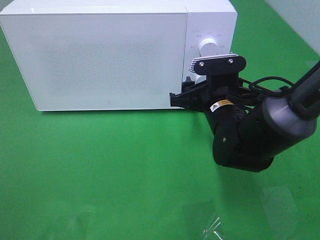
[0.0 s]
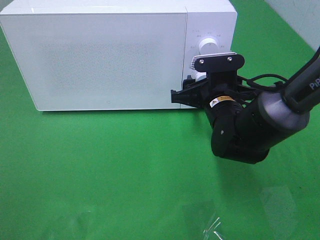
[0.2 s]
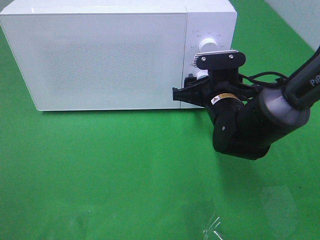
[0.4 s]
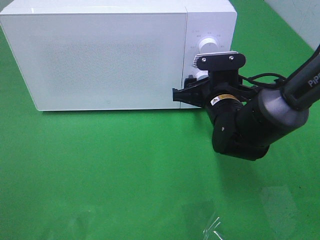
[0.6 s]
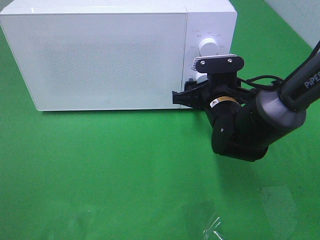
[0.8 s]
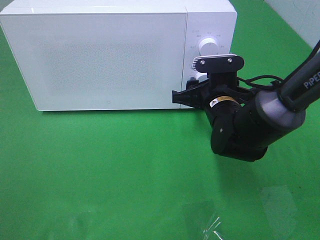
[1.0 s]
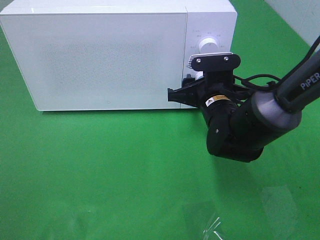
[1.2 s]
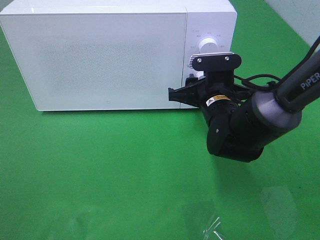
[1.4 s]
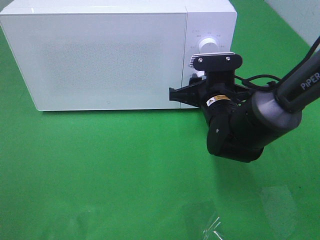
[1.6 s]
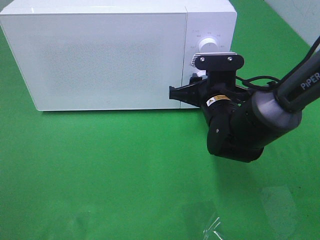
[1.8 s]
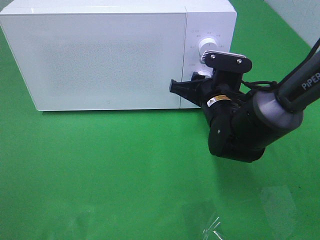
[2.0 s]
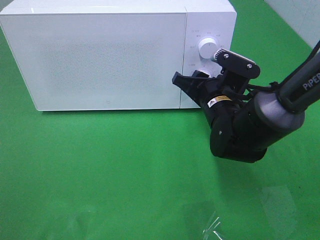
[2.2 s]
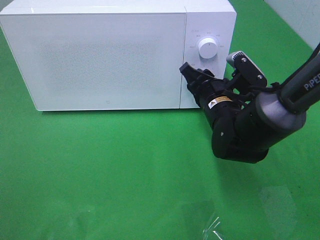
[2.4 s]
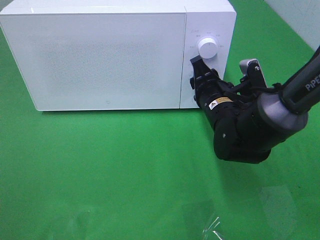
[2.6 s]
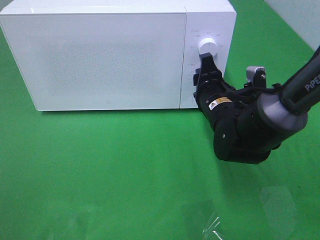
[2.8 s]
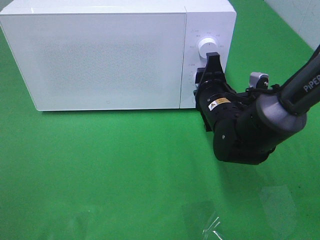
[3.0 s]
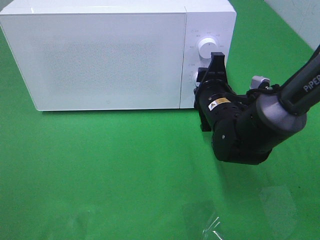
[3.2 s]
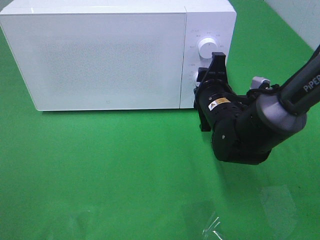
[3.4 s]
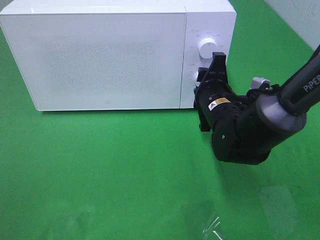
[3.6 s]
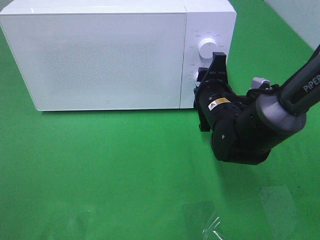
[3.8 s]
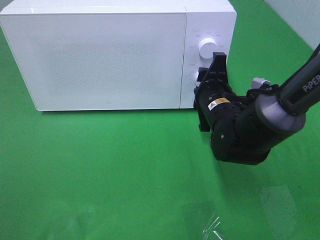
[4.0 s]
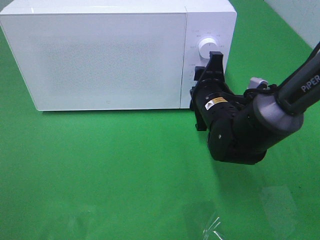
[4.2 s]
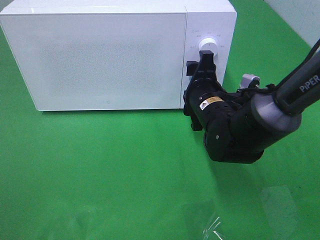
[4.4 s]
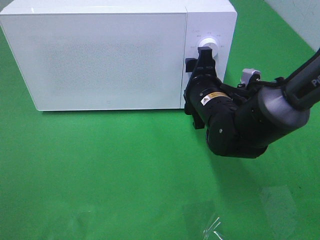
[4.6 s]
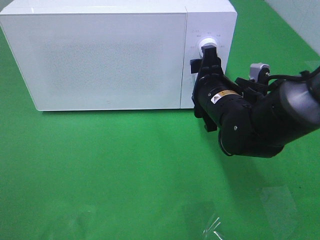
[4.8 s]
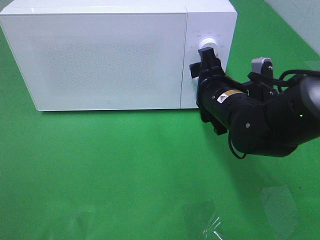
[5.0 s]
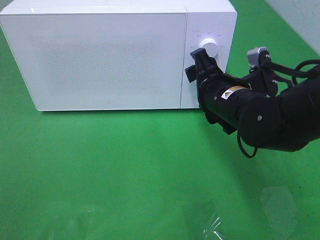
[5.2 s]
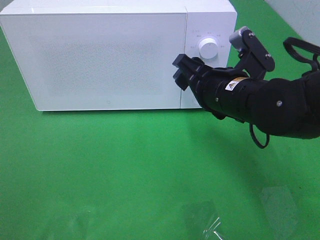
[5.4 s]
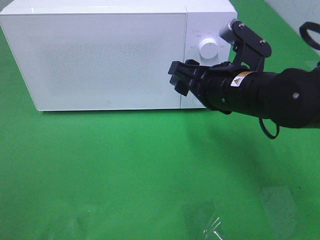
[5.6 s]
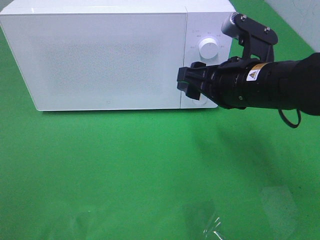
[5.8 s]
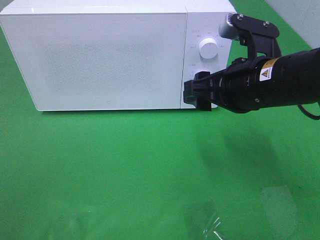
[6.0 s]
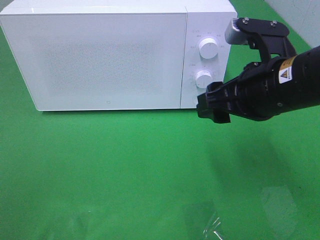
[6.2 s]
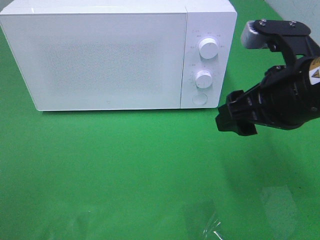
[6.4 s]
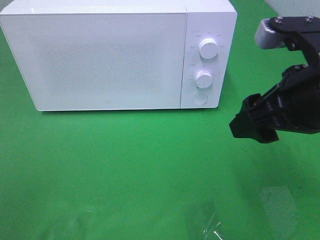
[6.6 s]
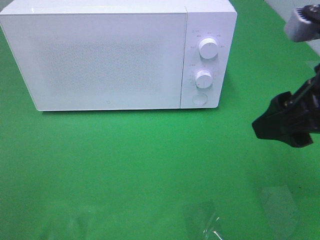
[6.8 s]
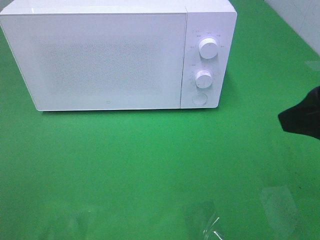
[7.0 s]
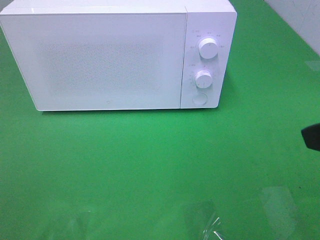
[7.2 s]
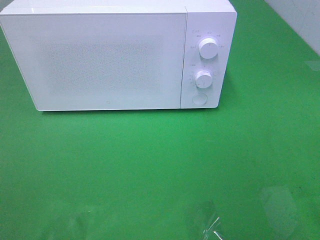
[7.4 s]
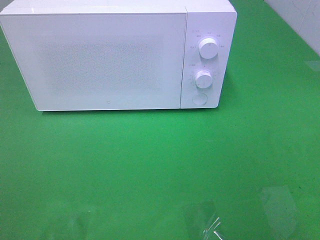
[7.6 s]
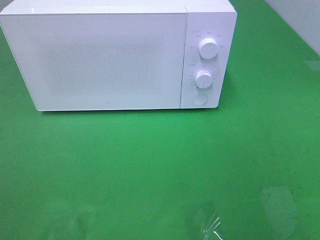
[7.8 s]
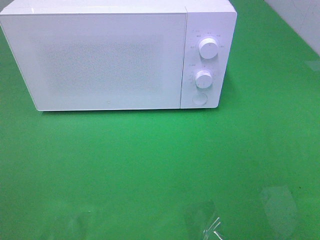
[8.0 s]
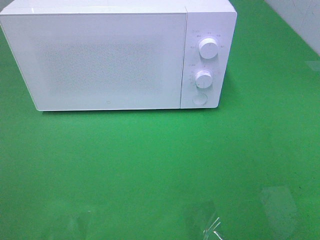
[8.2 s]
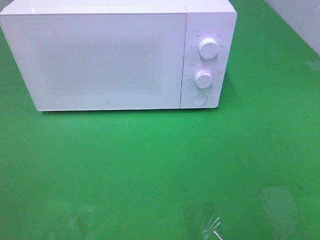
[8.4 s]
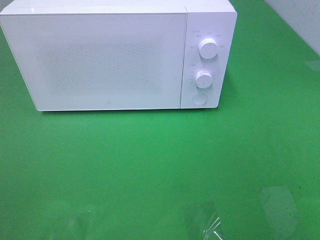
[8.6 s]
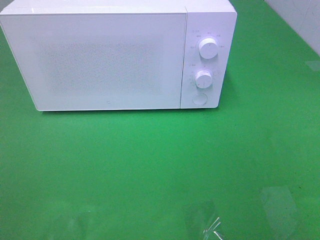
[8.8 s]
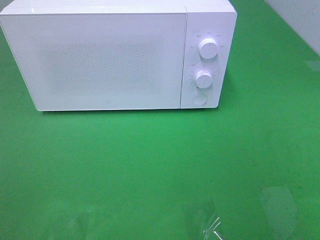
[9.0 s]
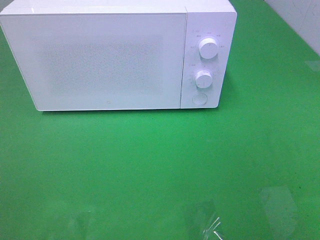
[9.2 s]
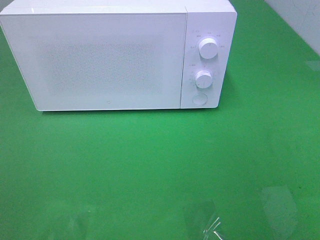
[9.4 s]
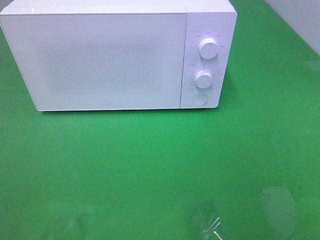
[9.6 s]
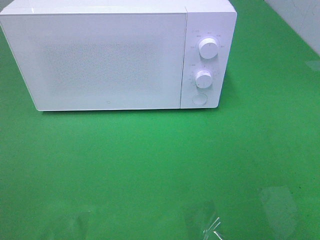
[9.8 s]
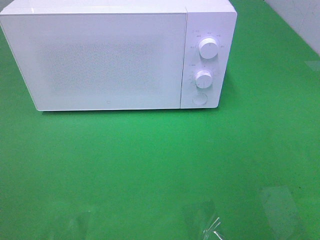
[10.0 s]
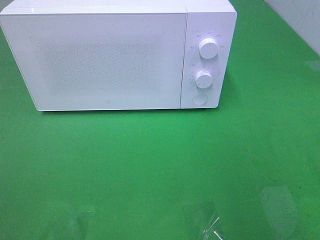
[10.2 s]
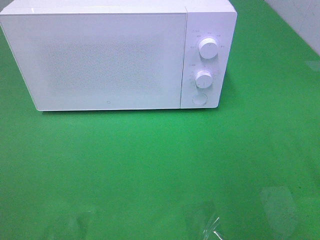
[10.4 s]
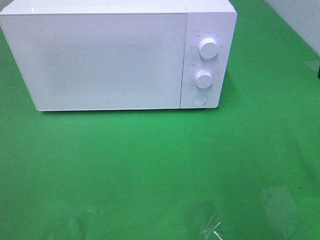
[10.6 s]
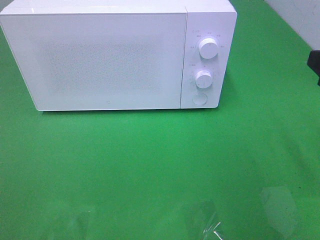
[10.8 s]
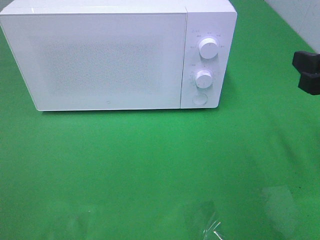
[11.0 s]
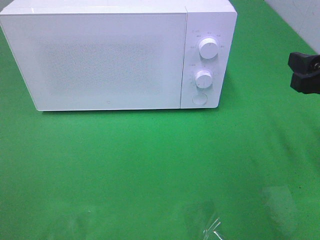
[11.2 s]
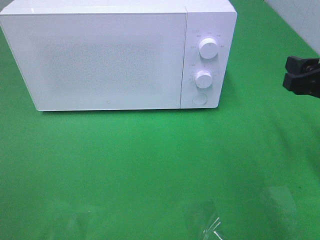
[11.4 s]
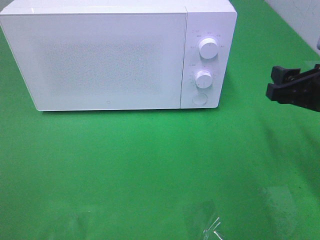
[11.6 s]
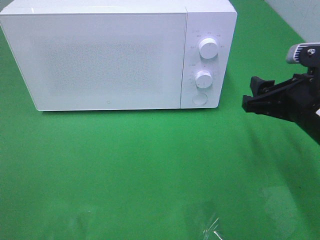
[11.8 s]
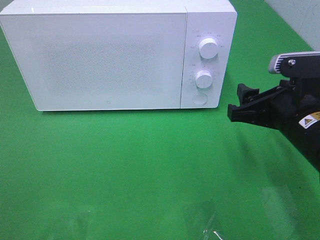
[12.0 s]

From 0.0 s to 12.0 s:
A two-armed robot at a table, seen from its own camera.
Task of the whole recording: Heat the burger.
Step, from 0.0 s to 5.4 s: Right hand: twist timer button.
From 0.0 s to 1.6 s: The right gripper closes.
From 3.0 s to 4.4 s: The grippers make only small movements.
From 4.4 s to 6.0 s: The right gripper goes some 15 cm upward and backward.
From 6.0 s to 7.6 s: The right gripper shifts some 25 cm backward, to the right and upward.
From 10.4 s to 12.0 s: The right gripper heads downward, to the left and forward, covering approximately 15 cm.

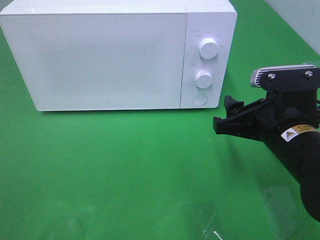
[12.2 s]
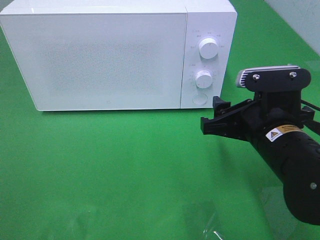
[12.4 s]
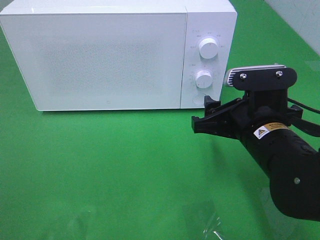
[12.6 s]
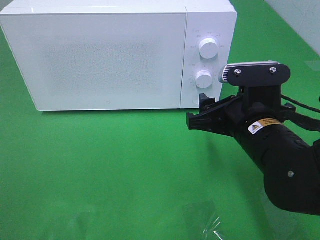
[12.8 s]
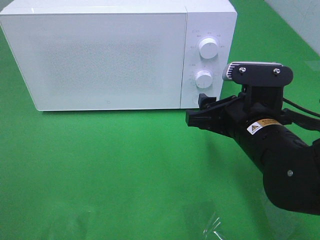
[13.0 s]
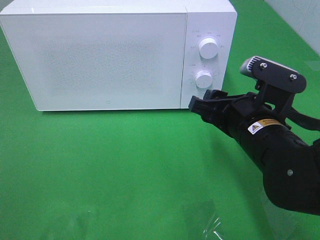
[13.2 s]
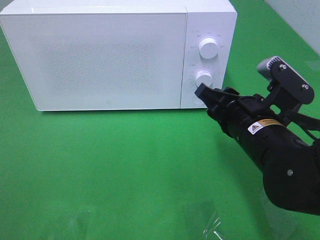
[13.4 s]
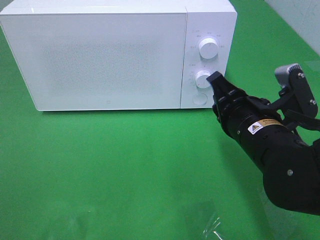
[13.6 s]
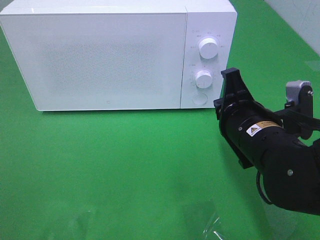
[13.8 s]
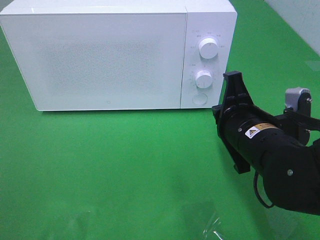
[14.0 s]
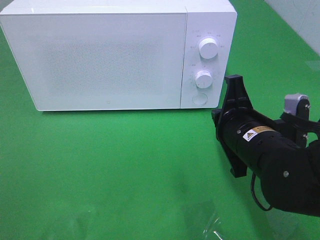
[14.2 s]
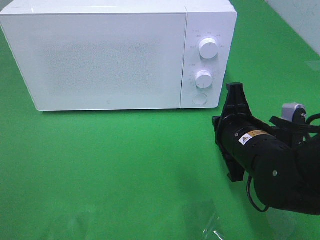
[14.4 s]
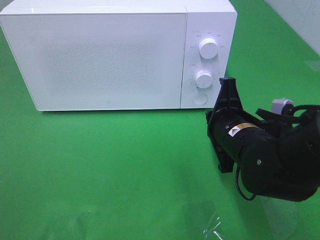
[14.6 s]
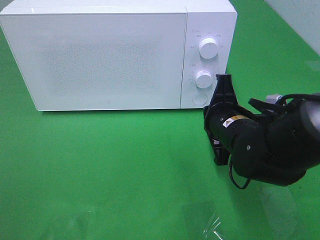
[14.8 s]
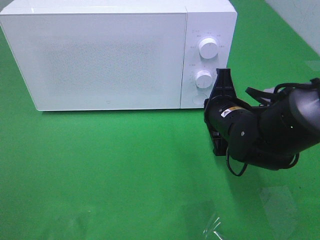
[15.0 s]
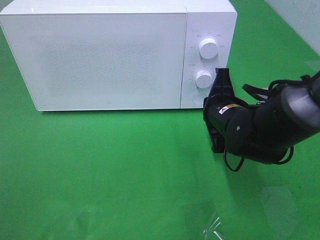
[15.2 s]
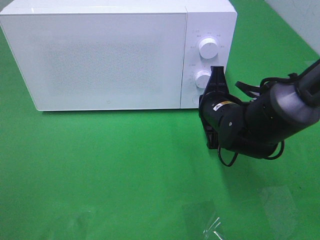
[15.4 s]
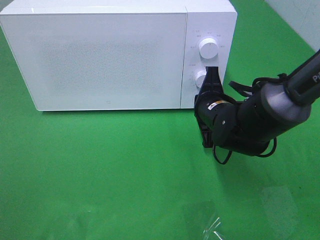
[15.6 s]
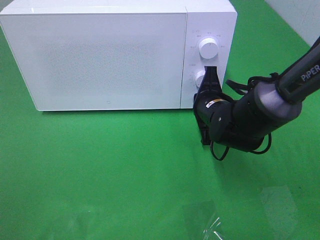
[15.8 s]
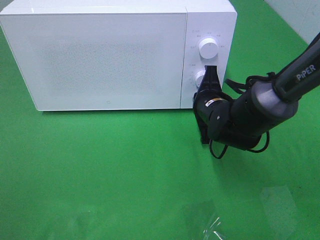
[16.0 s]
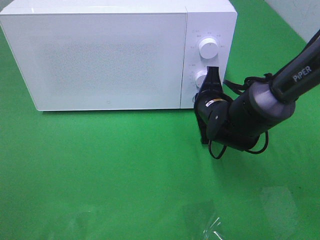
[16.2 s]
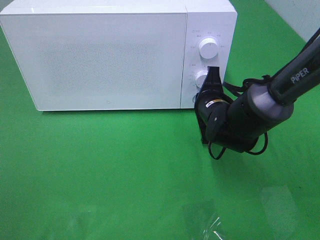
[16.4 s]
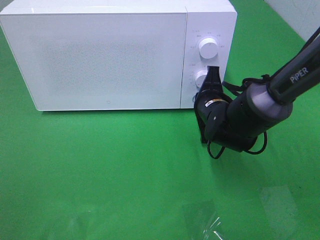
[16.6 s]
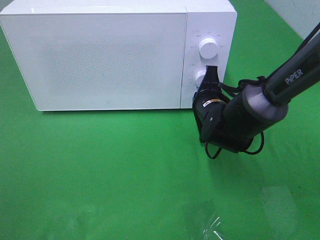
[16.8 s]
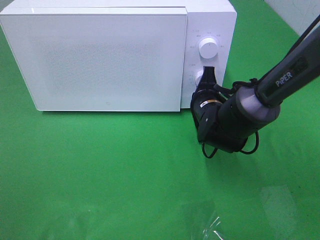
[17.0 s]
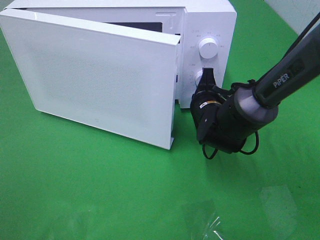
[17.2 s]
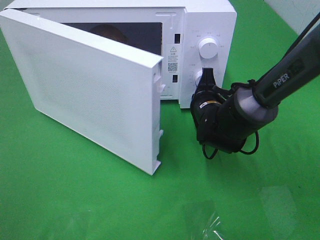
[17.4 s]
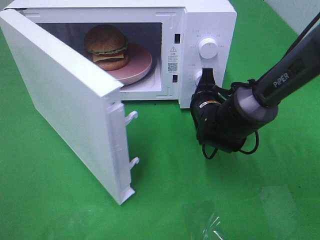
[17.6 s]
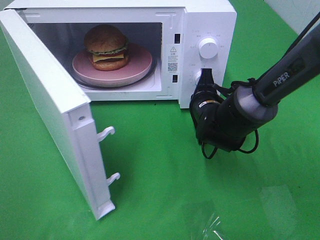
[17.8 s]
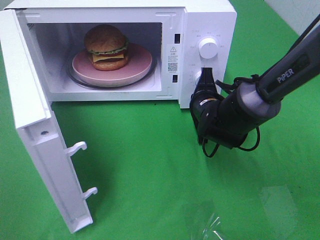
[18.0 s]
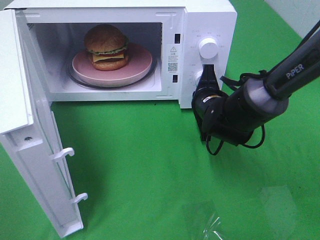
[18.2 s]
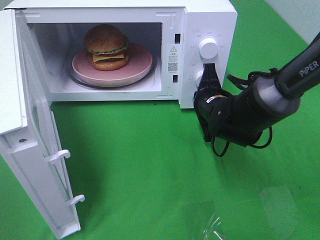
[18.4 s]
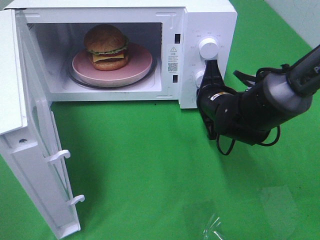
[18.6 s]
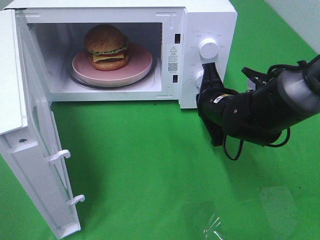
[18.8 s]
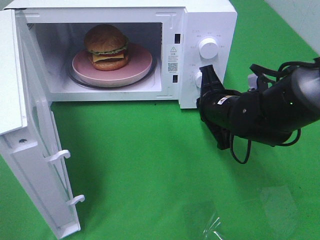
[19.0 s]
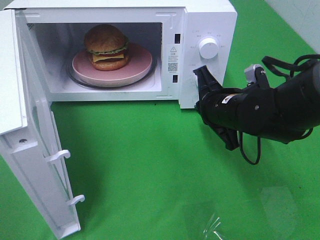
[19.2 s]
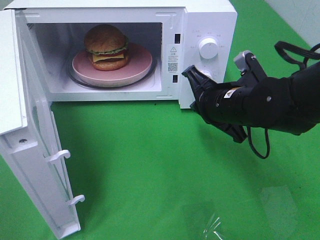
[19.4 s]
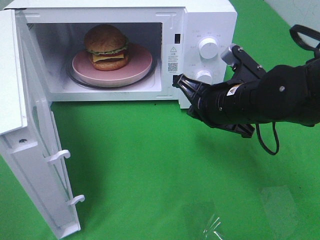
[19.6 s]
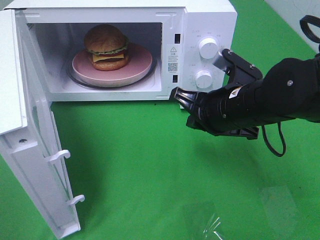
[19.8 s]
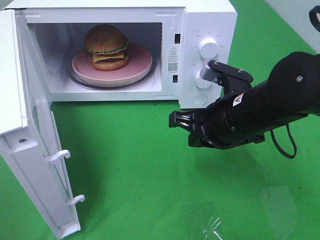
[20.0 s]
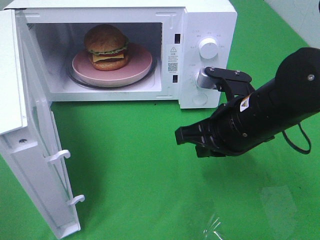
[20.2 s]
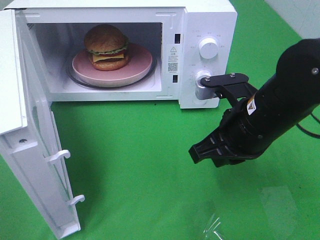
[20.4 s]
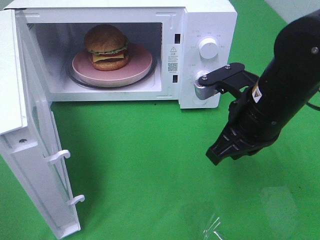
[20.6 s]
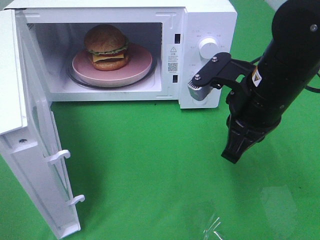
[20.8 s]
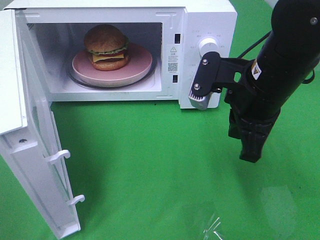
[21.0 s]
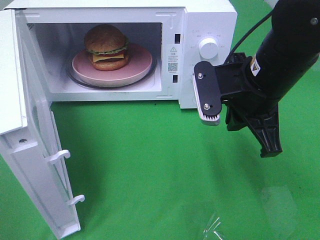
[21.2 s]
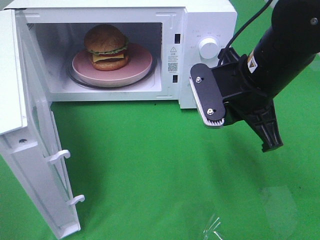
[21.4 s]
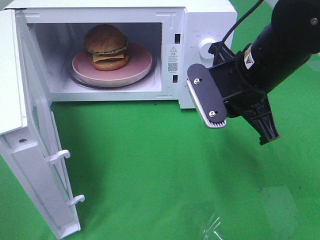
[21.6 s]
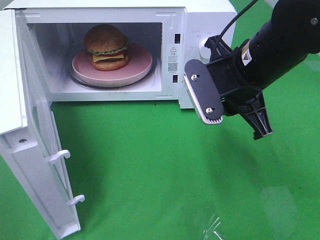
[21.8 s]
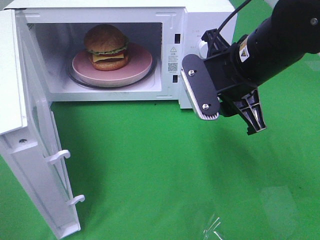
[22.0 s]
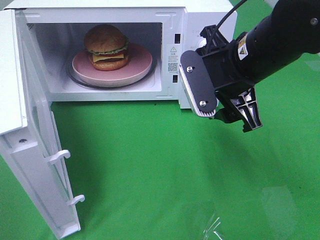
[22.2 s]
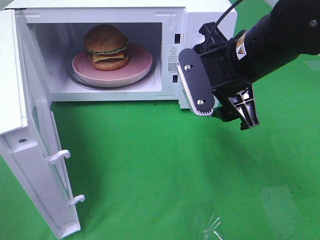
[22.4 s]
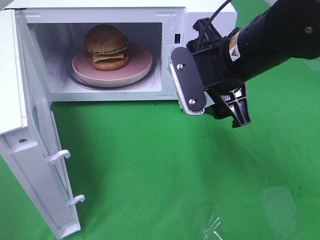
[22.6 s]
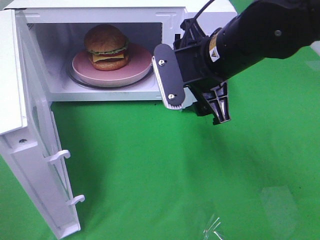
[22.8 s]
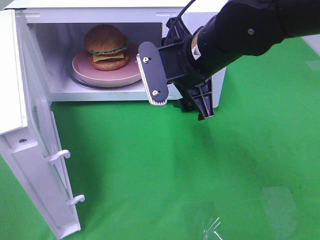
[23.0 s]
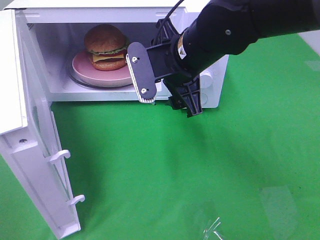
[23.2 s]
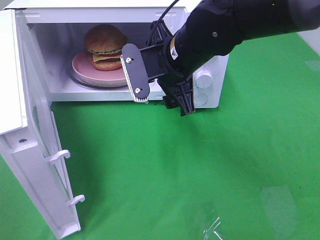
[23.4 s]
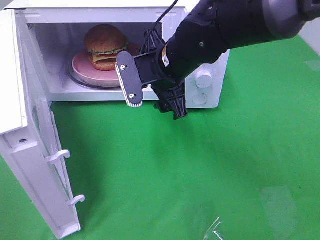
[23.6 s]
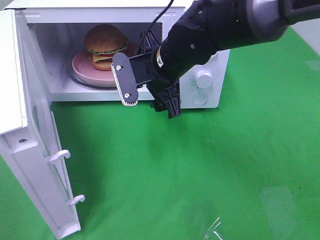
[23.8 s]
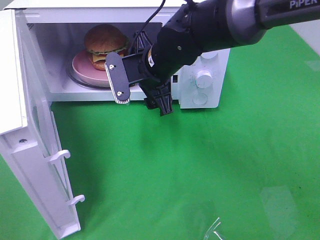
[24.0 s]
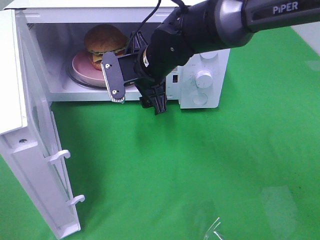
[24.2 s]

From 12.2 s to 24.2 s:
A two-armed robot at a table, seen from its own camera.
Task of the whole recording: Heat the burger.
Step, from 12.2 s to 19.0 s: Right hand: press the switch.
From 12.2 s to 13.8 s: The right gripper closes its fingers.
From 13.8 s to 15.2 s: The right gripper travels forward by approximately 10 cm.
From 15.2 s to 16.6 s: The grippers make only small movements.
From 18.2 s to 19.8 s: The right gripper travels backward and upward by approximately 10 cm.
From 19.8 s to 21.2 s: The right gripper travels upward by roughly 5 cm.
From 21.2 s to 22.6 s: The right gripper opens.
From 22.6 s to 24.2 s: The right gripper heads to the left, forward and downward, covering approximately 15 cm.
